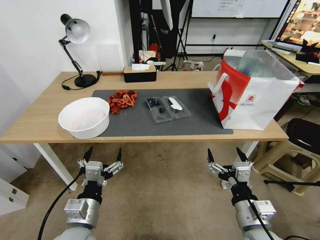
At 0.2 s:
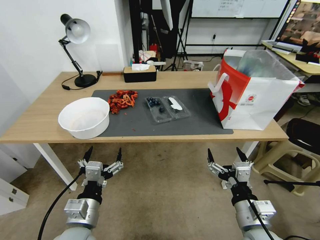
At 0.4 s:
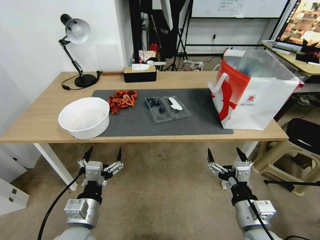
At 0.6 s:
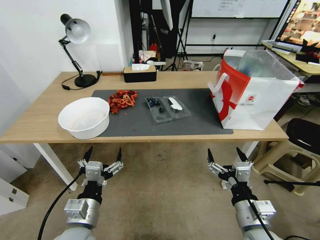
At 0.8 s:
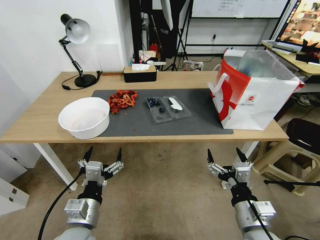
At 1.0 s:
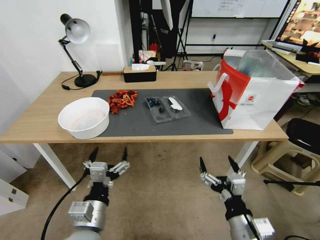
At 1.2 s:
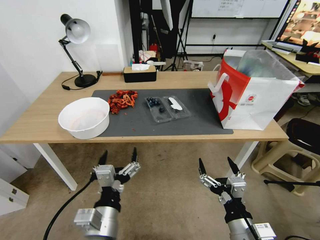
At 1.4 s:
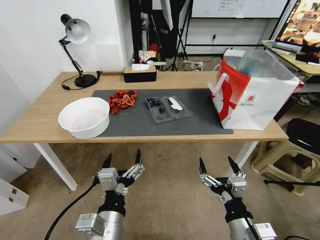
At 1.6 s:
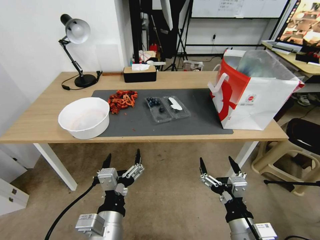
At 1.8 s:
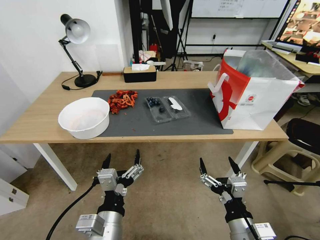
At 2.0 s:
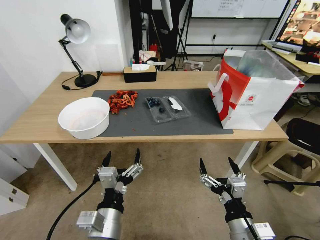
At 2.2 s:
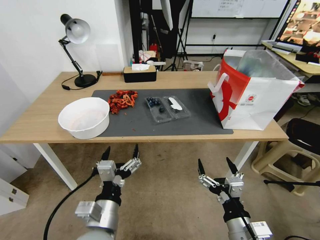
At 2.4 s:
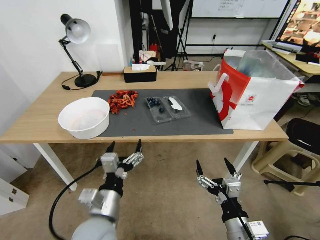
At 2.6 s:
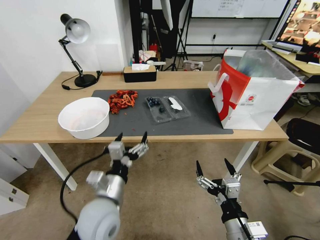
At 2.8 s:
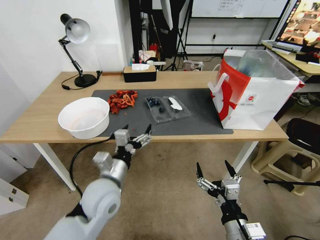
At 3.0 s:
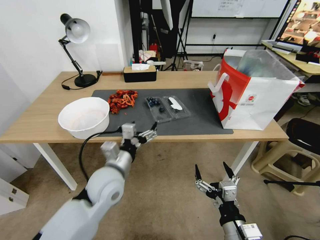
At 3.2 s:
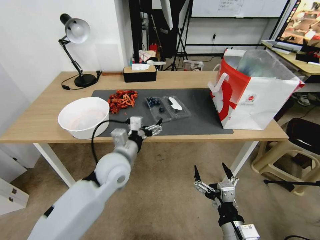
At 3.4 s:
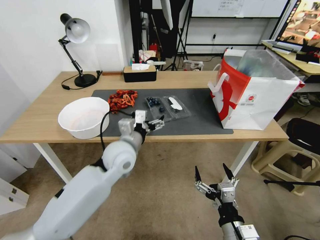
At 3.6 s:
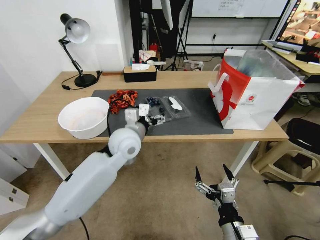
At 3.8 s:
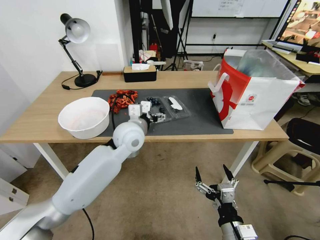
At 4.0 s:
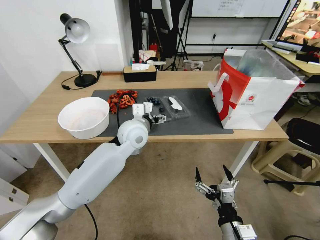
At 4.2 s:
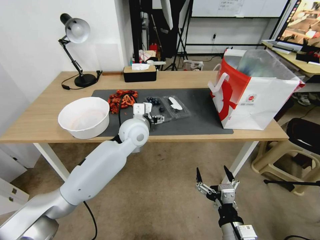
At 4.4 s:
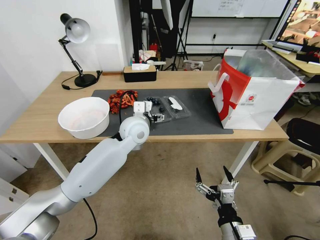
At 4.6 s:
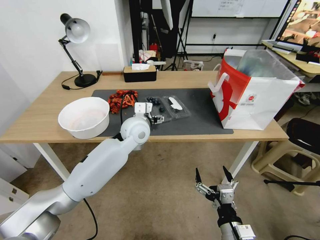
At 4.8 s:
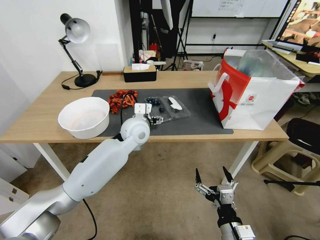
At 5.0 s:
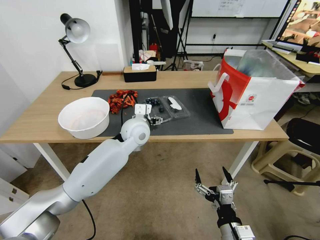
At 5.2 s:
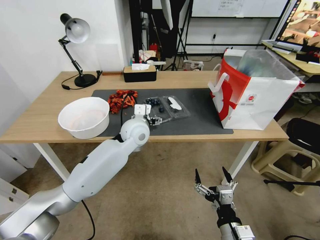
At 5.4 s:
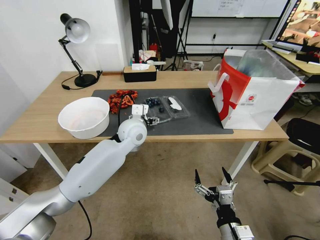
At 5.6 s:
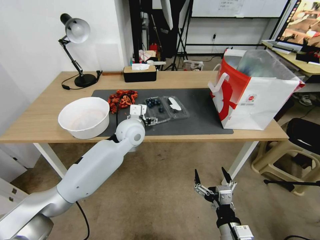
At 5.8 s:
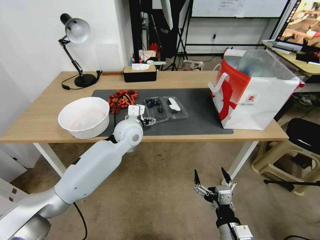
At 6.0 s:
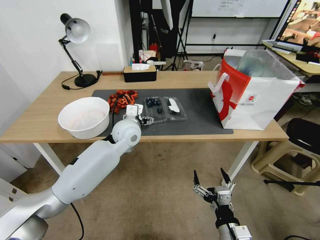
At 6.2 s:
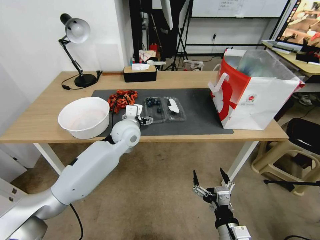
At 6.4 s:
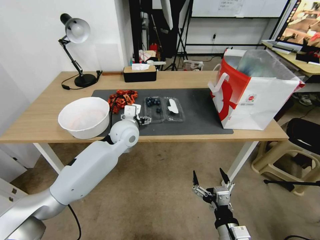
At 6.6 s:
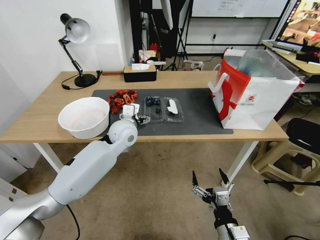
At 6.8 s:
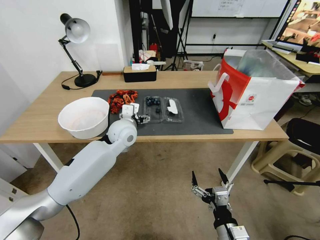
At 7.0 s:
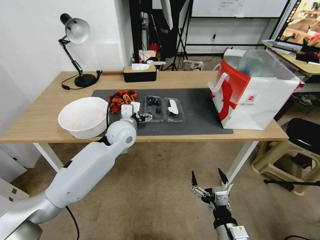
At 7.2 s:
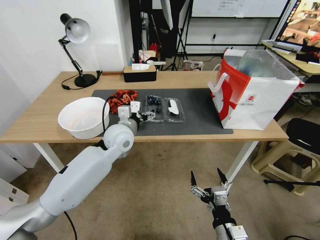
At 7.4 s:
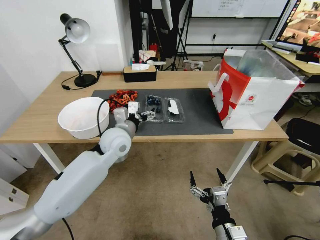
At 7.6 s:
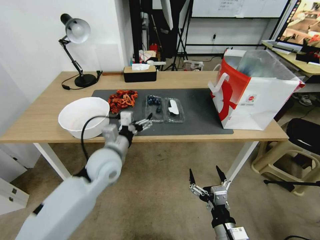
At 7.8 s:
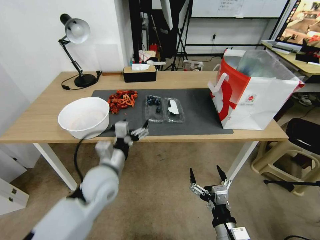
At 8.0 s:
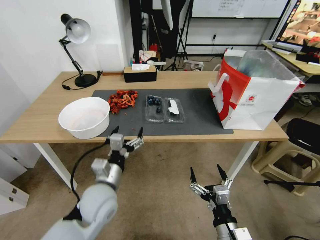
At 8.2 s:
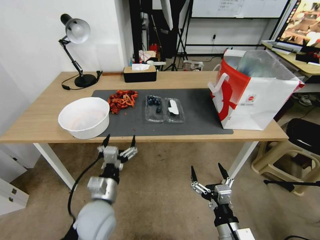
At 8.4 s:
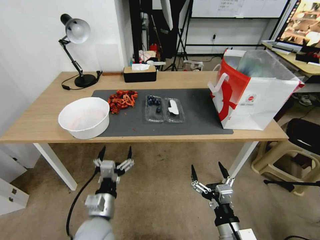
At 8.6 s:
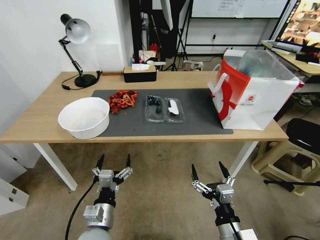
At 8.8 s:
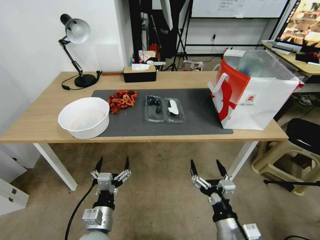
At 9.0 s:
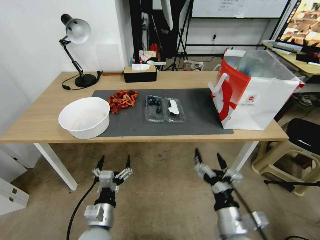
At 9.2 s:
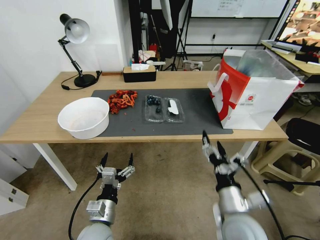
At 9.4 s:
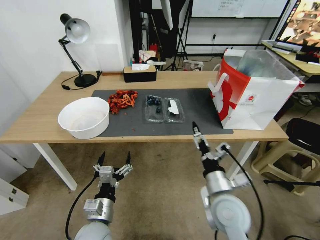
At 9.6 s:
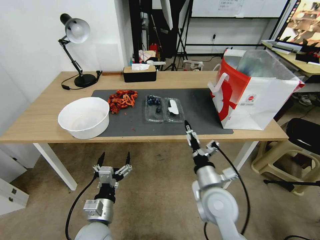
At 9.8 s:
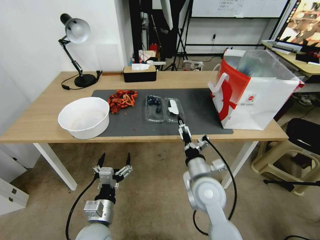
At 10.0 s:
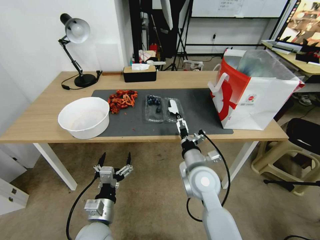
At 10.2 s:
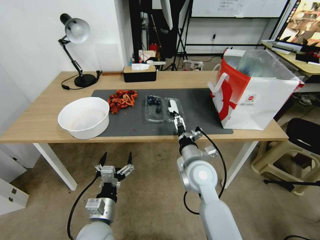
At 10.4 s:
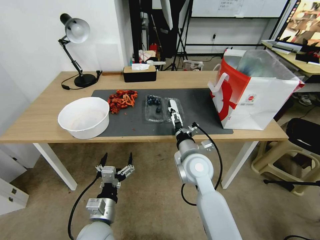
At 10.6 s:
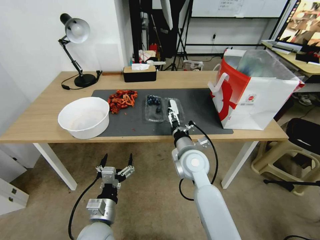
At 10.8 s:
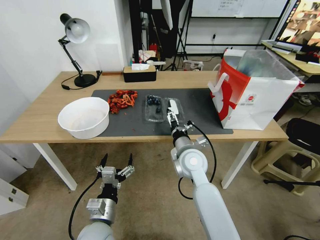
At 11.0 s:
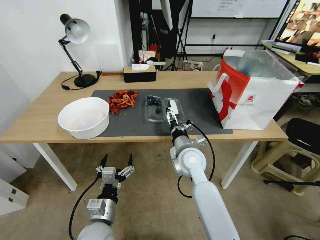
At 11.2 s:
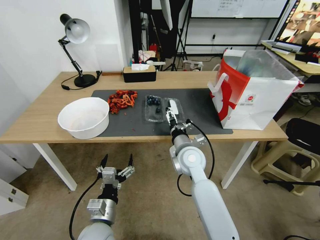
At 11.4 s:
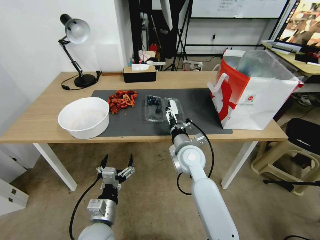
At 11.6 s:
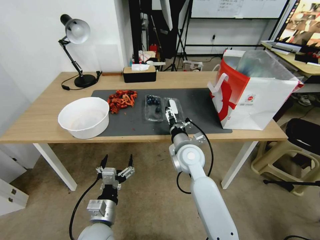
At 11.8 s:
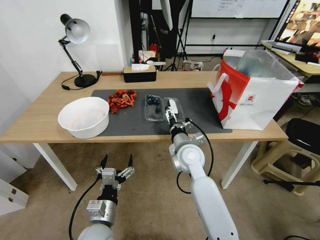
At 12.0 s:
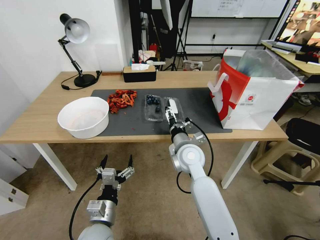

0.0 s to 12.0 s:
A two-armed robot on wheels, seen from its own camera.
Task of the whole recording: Close the takeout container lid, then place the container into the takeout bag.
1.6 to 3.0 s: The left gripper moves forward, some 15 cm.
3.0 to 4.4 s: The left gripper travels forward and to the right by about 15 cm.
4.4 to 6.0 s: The grippers move only a little.
6.0 to 7.6 s: The left gripper shifts about 10 cm backward.
7.6 to 9.0 s: The left gripper is displaced backward and downward by about 25 cm, while the right gripper goes approximately 5 cm upward.
9.0 to 10.4 s: The right gripper shifts approximately 20 cm forward and to the left.
10.4 to 12.0 s: The grippers move only a little.

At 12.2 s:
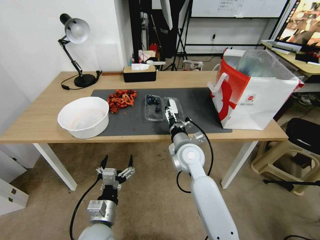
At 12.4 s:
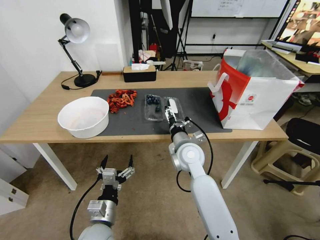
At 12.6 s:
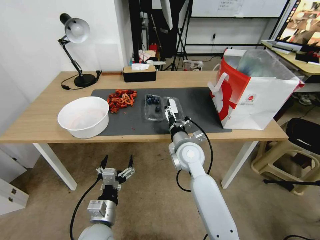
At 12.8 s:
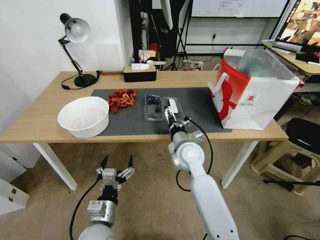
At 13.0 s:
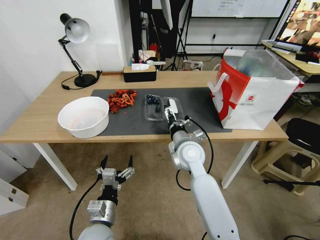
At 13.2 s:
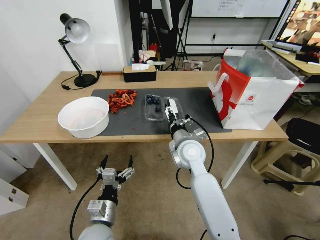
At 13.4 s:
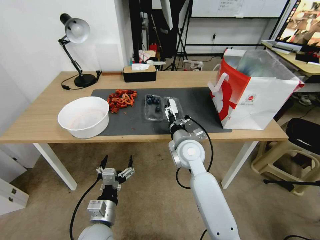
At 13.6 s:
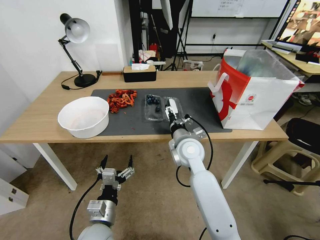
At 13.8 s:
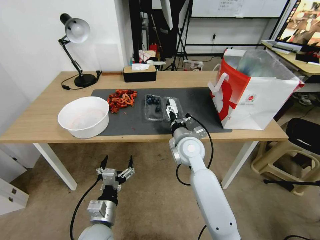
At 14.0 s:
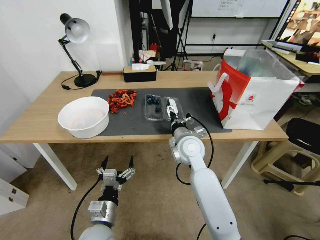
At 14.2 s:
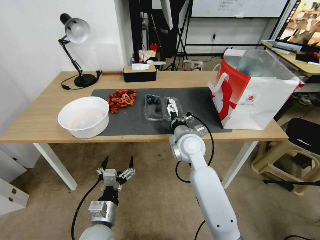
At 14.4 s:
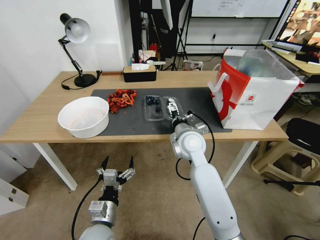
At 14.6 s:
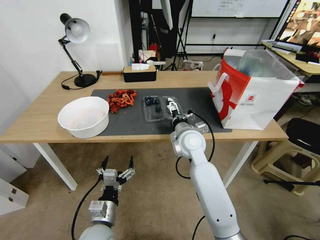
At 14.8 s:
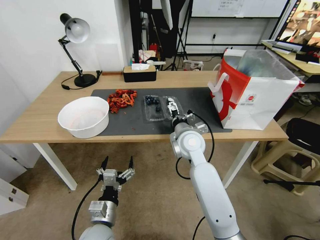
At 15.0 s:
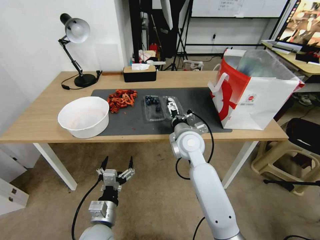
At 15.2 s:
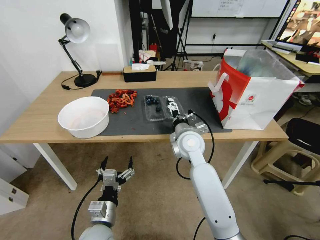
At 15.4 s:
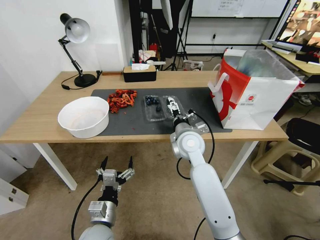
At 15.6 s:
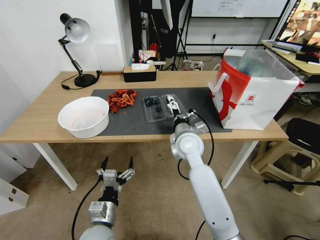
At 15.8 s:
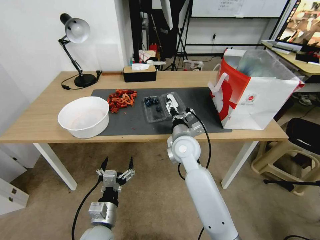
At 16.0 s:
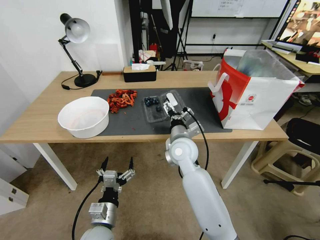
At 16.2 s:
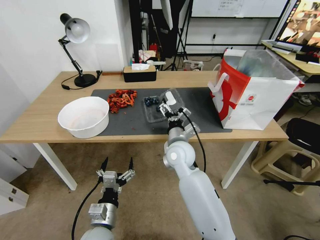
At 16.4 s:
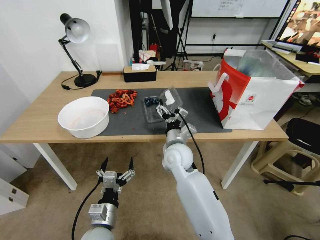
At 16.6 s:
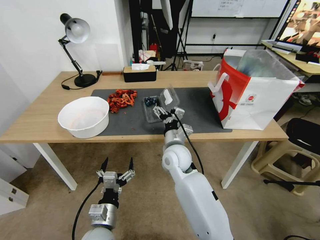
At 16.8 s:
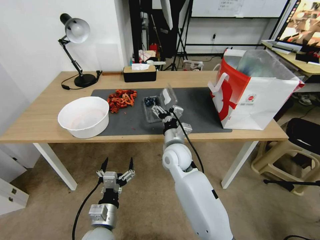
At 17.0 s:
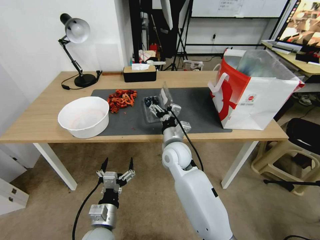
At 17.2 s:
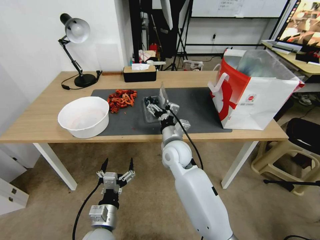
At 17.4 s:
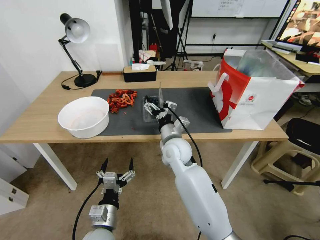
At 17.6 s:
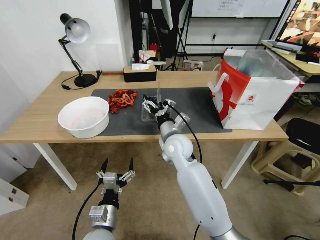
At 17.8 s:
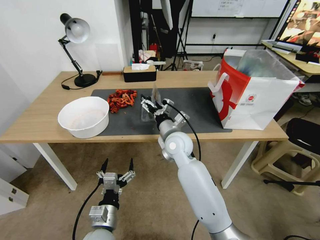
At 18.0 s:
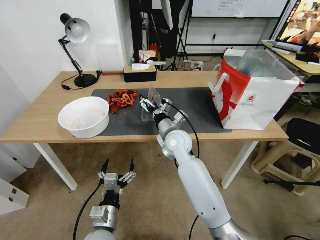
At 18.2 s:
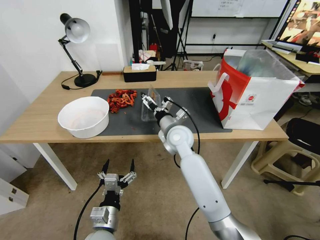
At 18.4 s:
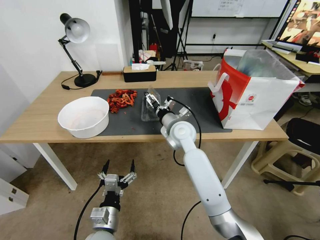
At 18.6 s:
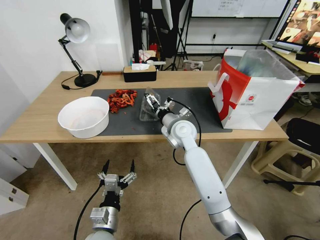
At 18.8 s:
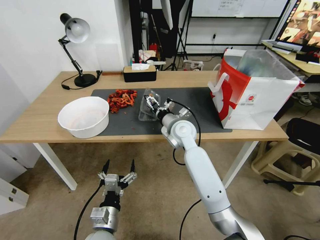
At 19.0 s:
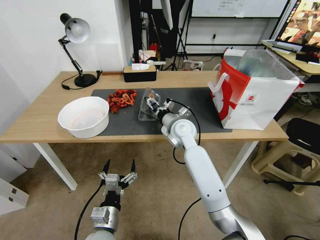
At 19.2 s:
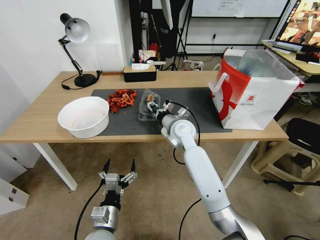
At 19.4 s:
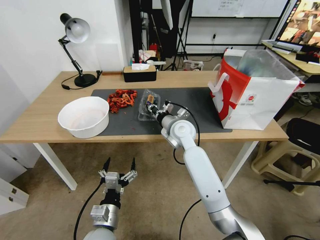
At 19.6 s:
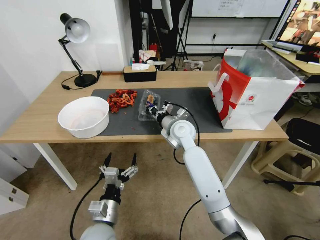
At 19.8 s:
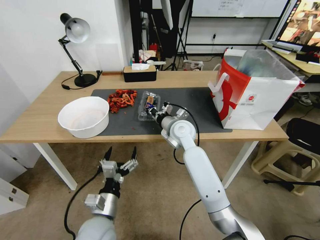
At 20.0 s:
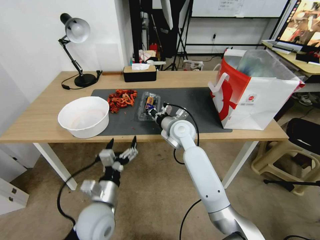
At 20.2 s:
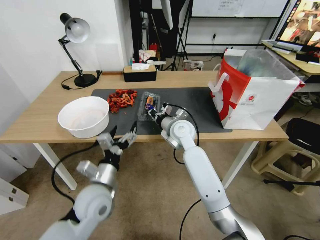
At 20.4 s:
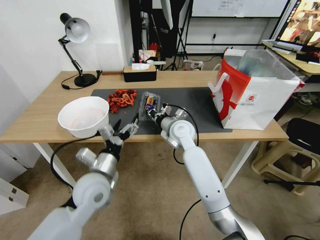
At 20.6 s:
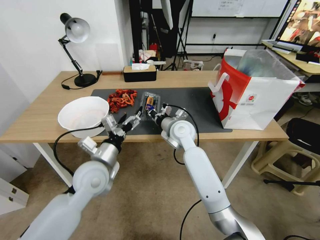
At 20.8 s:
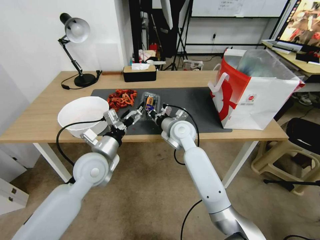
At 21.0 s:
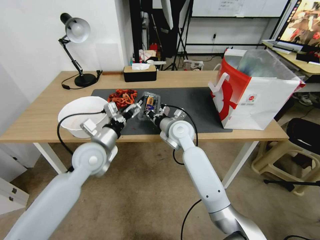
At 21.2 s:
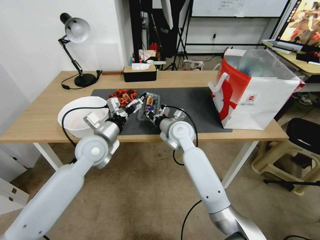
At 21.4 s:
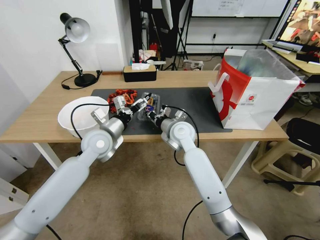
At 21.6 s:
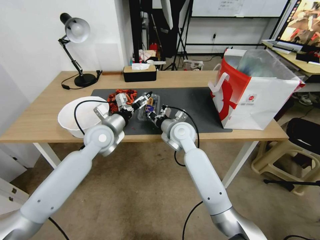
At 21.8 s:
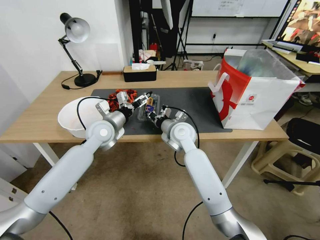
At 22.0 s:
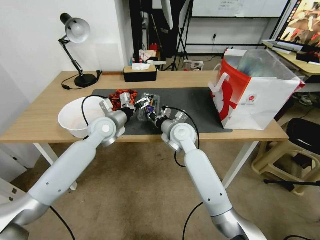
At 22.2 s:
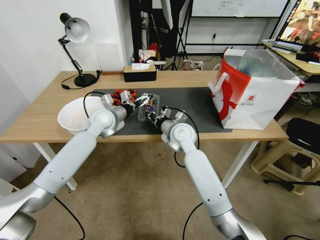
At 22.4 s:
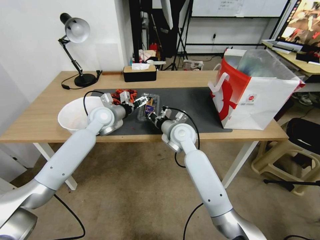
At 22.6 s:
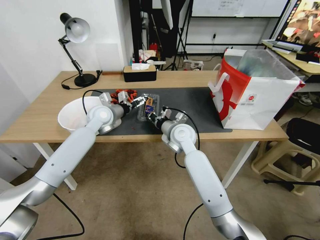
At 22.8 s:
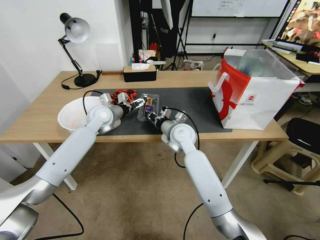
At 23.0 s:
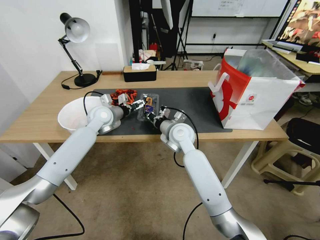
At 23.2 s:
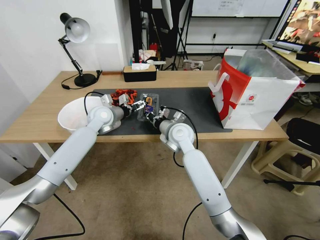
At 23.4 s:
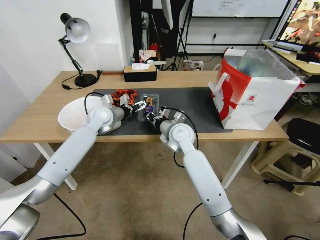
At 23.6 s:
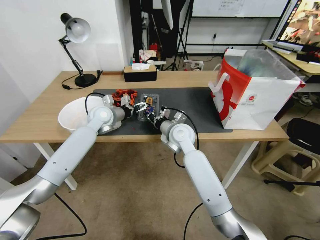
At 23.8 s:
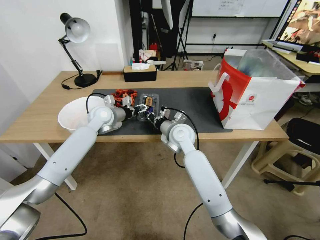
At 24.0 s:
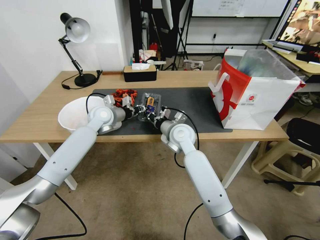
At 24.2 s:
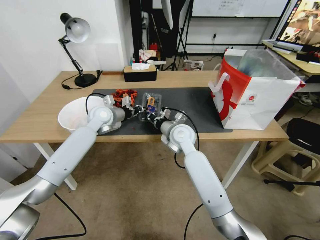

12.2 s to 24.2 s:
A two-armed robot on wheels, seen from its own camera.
Task of the whole recording: Close the takeout container lid, then place the container into the takeout bag.
12.2 to 15.2 s: The grippers make only small movements.
15.2 to 16.6 s: The right gripper moves about 5 cm.
16.6 to 18.2 s: The right gripper travels forward by roughly 5 cm.
18.2 to 19.8 s: The right gripper closes its fingers.
19.8 to 21.2 s: The left gripper moves forward and upward, approximately 25 cm.
21.2 to 22.6 s: The left gripper shifts some 15 cm forward.
22.6 to 24.2 s: The left gripper closes its fingers.
